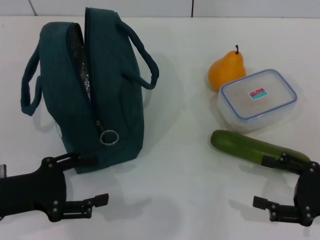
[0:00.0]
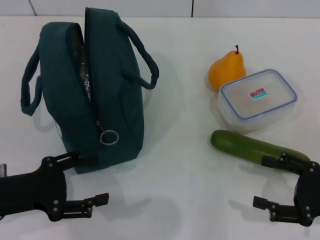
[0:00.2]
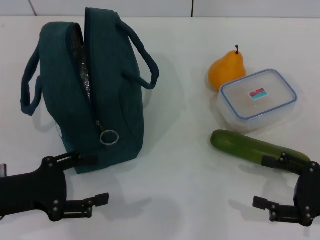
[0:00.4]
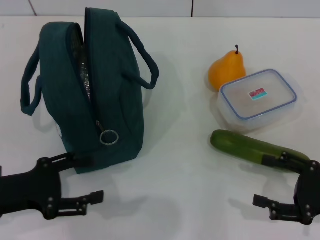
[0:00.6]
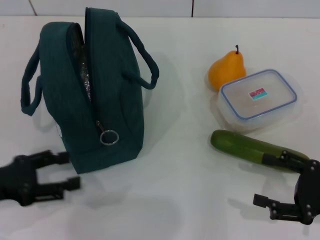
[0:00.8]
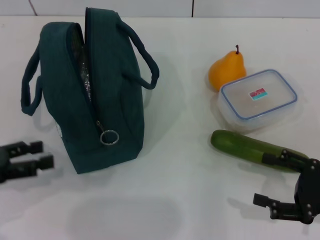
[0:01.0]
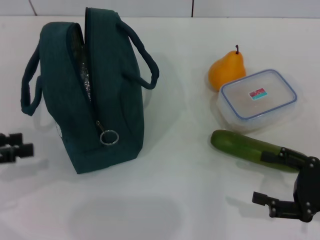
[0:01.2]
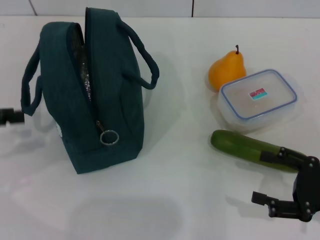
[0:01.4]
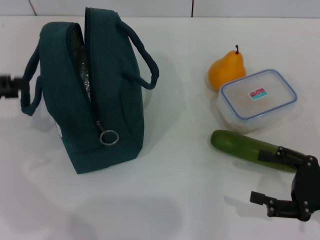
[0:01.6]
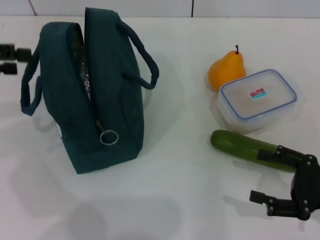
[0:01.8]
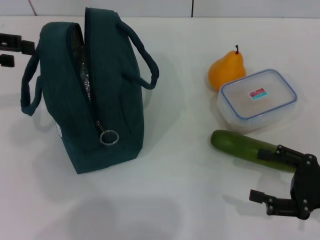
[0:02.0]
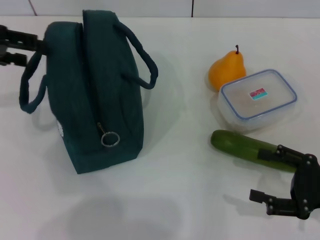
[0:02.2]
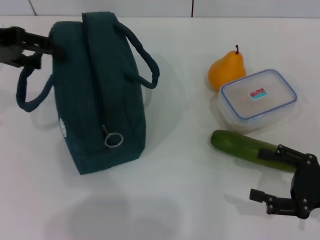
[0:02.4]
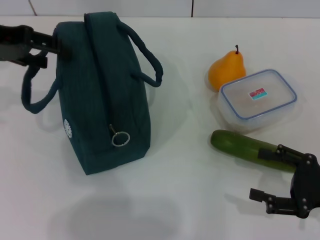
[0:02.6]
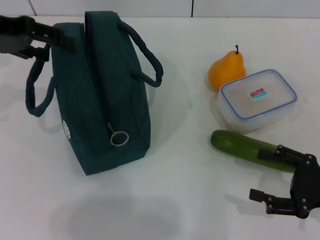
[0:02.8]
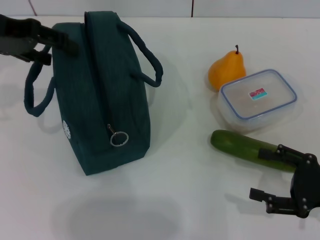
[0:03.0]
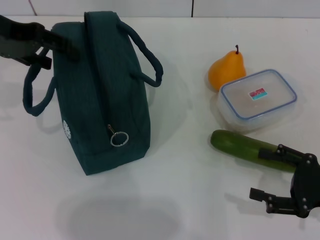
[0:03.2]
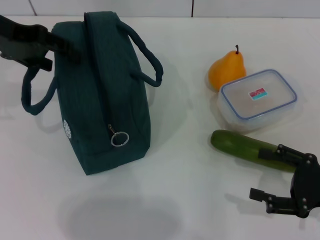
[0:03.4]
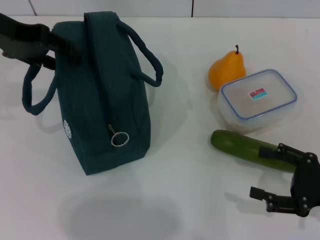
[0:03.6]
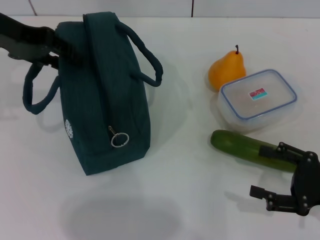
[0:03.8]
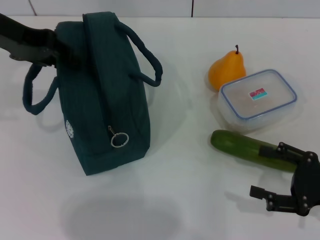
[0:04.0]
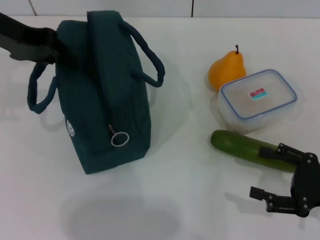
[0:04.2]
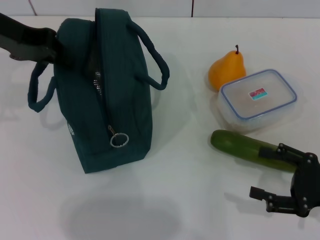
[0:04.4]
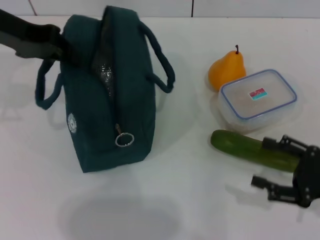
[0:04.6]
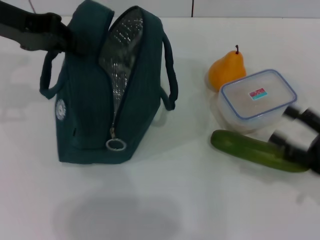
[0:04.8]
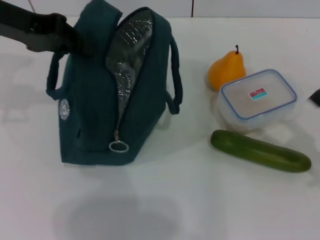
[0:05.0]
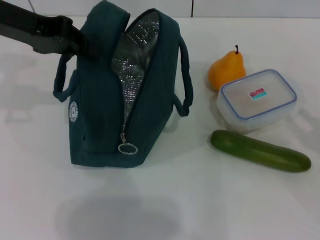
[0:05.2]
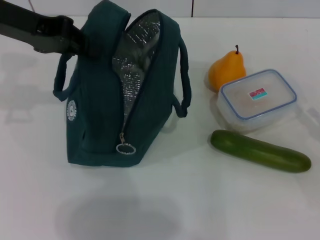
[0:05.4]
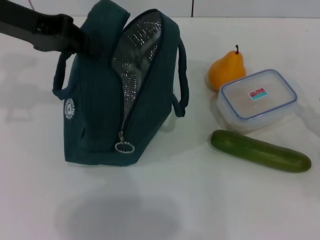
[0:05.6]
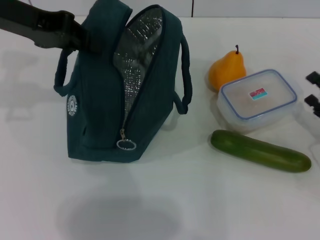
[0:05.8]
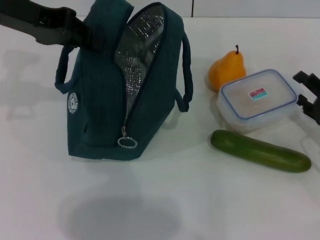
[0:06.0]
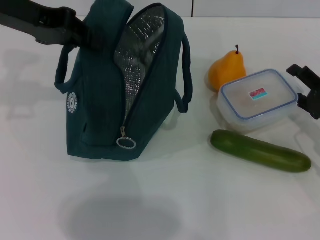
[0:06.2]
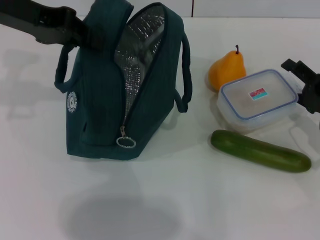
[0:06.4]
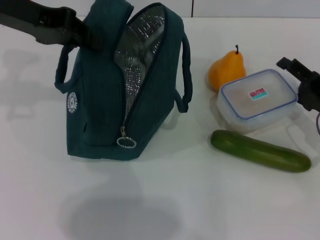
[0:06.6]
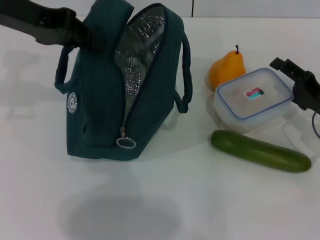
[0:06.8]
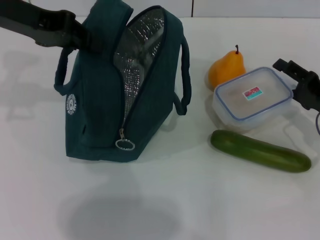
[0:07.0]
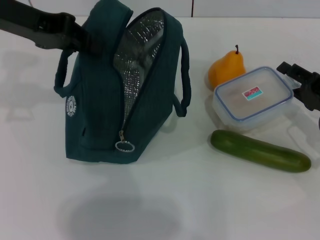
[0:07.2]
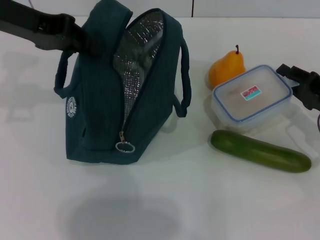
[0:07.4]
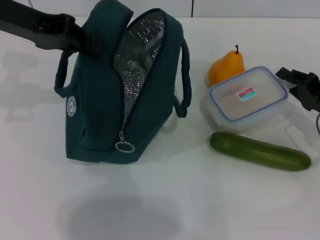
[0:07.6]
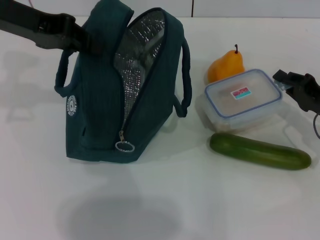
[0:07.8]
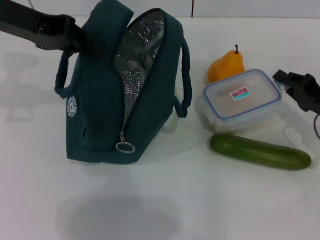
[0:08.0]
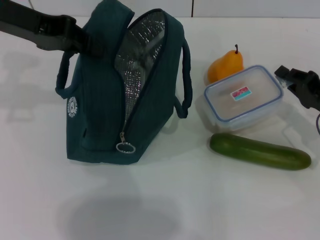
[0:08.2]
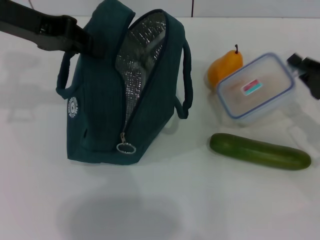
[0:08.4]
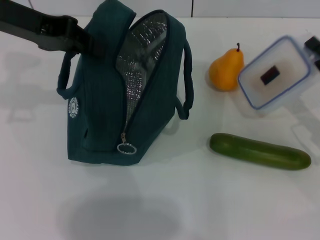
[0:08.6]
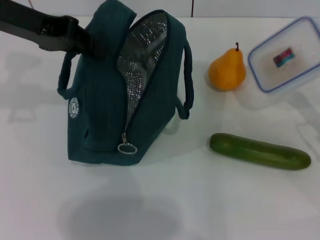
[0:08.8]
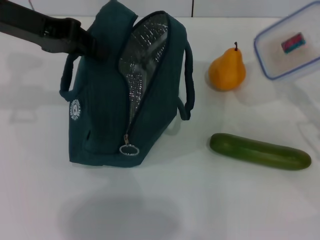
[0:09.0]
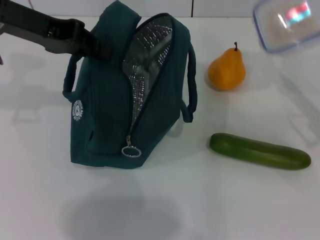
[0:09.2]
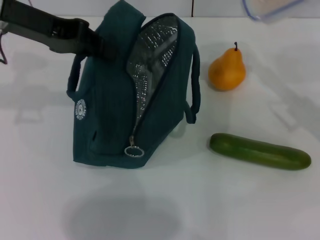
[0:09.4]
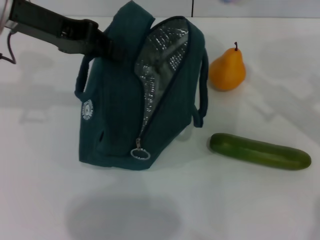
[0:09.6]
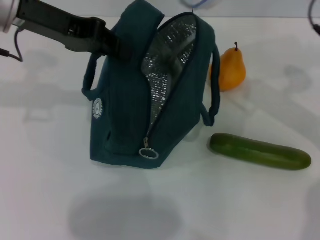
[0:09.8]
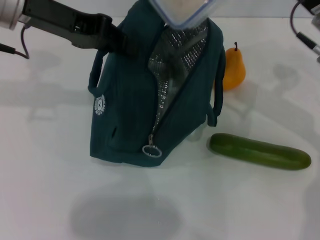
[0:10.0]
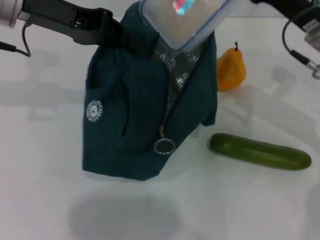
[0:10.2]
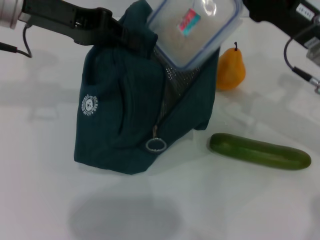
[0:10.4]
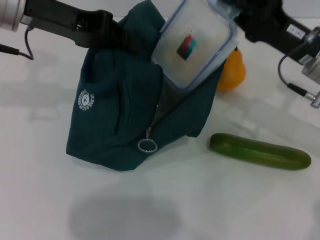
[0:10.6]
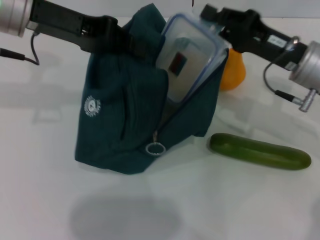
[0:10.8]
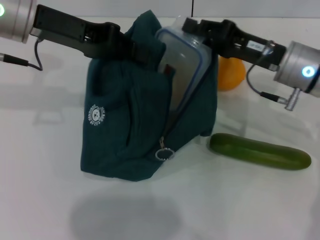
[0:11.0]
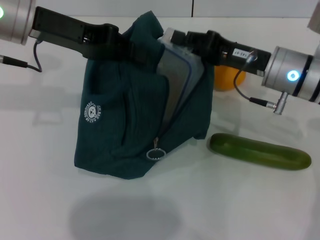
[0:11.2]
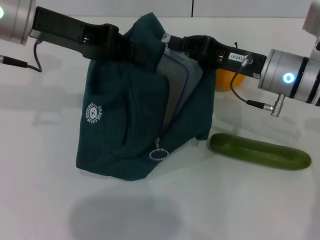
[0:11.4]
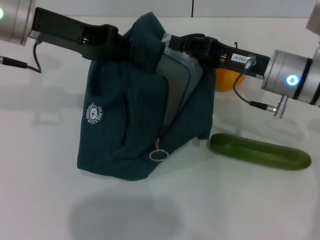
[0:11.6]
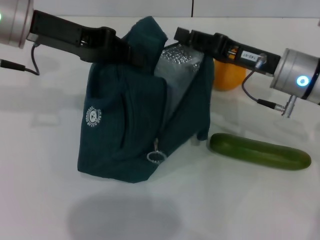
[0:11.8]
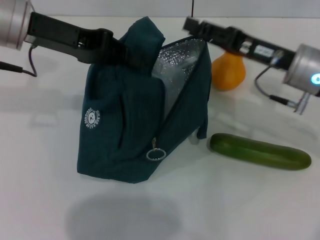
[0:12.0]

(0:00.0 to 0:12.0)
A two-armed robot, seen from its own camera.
Step, 0:00.0 - 0:04.0: Hold the lunch bag with your left hand.
Step, 0:04.4 - 0:08.0: Pick up the lunch box with your right hand.
Step, 0:08.4 - 0:12.0: Place the lunch box into the lunch bag with your right hand.
0:00.0 - 0:01.6: The left gripper travels upward, forward and to the left by approximately 15 cm.
0:01.6 - 0:03.0: The left gripper shifts roughly 15 cm to the right, forward and upward.
0:03.0 - 0:04.4: The left gripper closes up.
0:04.4 - 0:06.0: The right gripper heads forward, covering some 5 cm.
0:06.0 - 0:07.6: The right gripper closes.
0:07.6 - 0:09.0: The right gripper moves about 5 cm.
0:09.0 - 0:10.4: The right gripper is displaced to the left, forward and upward by about 15 cm.

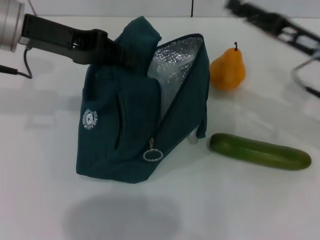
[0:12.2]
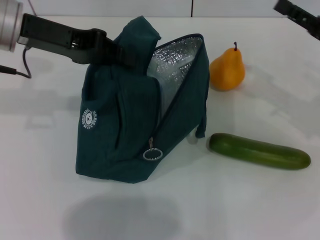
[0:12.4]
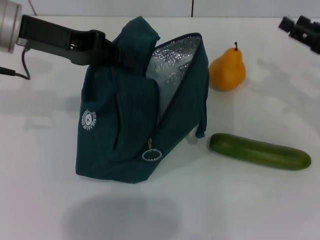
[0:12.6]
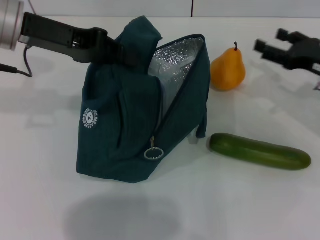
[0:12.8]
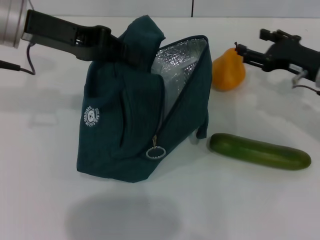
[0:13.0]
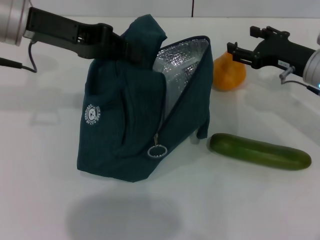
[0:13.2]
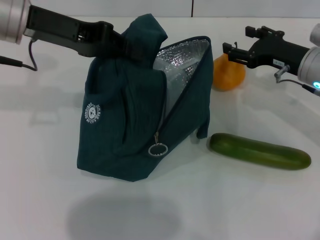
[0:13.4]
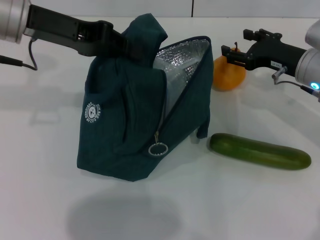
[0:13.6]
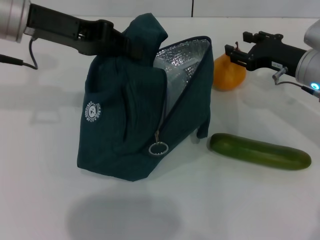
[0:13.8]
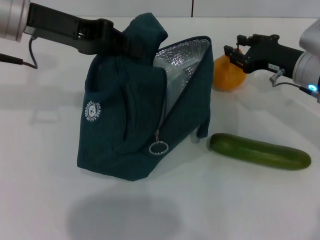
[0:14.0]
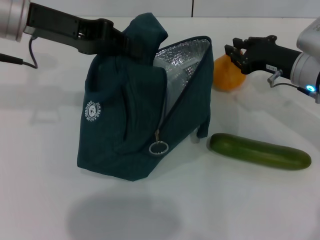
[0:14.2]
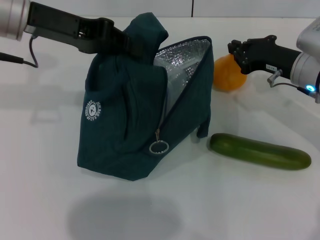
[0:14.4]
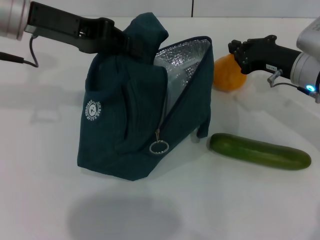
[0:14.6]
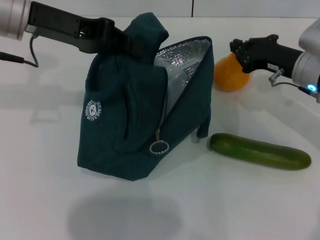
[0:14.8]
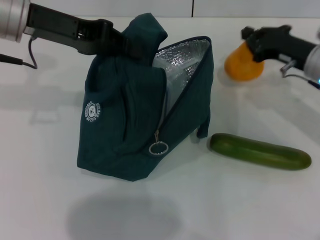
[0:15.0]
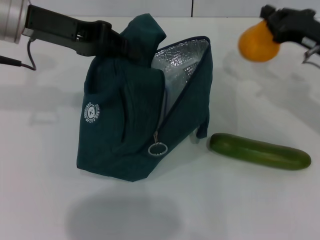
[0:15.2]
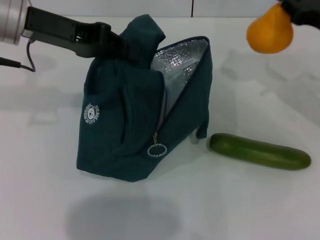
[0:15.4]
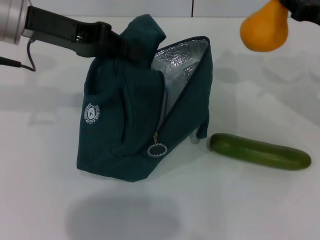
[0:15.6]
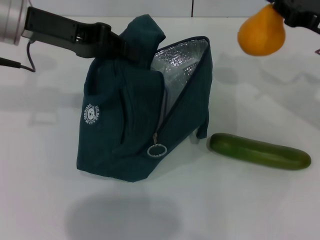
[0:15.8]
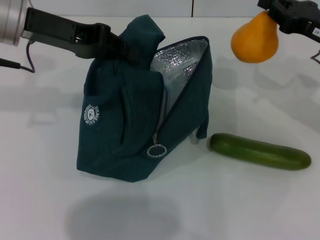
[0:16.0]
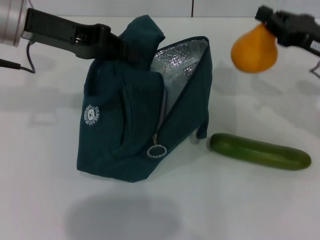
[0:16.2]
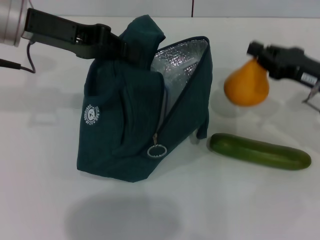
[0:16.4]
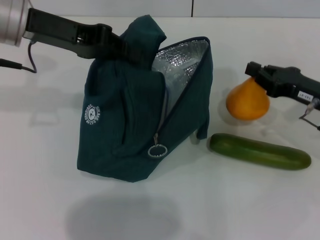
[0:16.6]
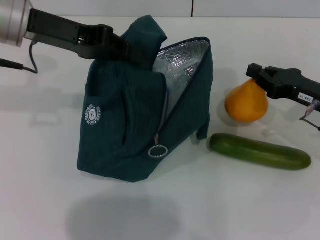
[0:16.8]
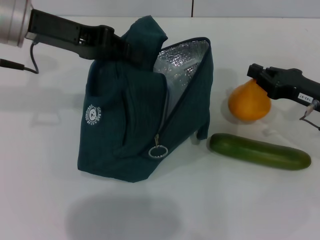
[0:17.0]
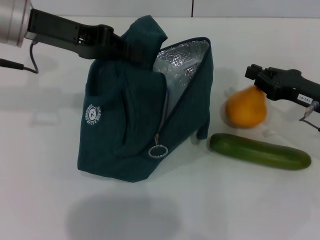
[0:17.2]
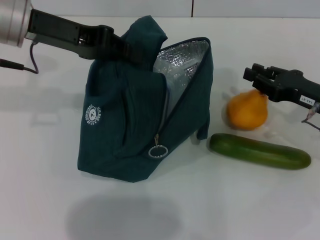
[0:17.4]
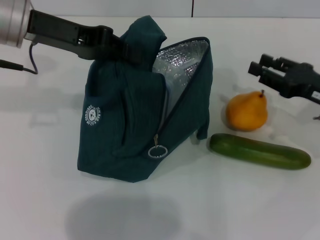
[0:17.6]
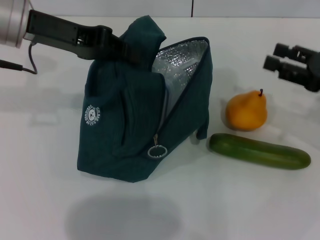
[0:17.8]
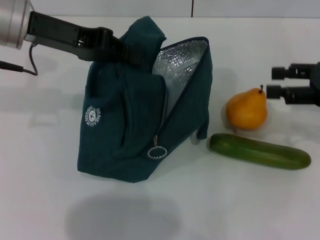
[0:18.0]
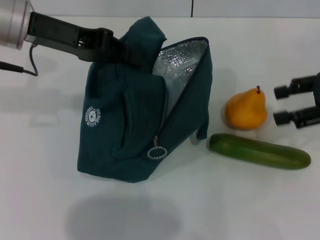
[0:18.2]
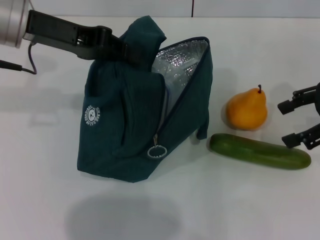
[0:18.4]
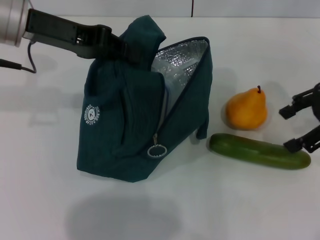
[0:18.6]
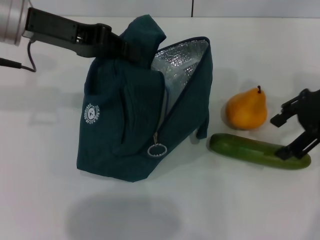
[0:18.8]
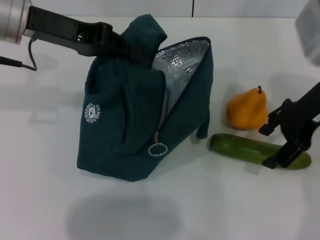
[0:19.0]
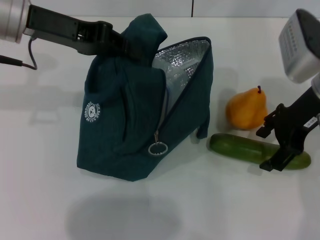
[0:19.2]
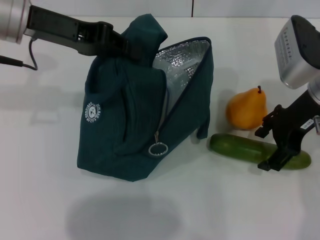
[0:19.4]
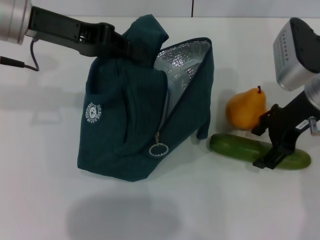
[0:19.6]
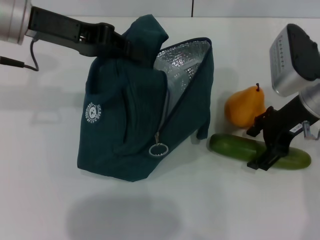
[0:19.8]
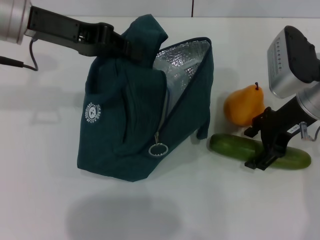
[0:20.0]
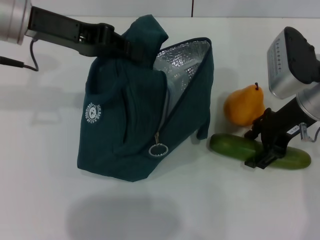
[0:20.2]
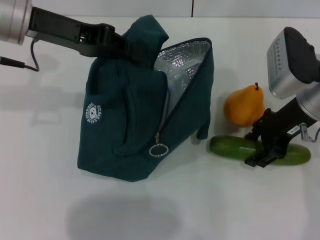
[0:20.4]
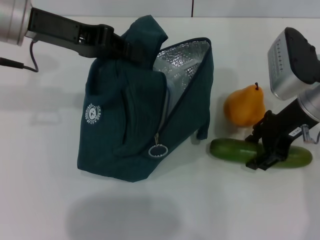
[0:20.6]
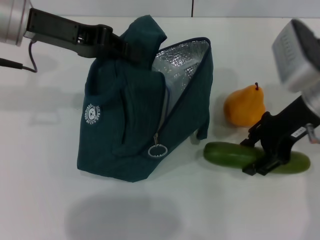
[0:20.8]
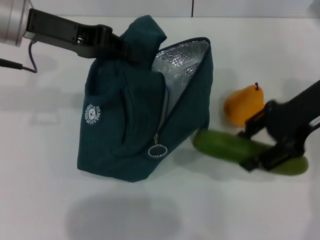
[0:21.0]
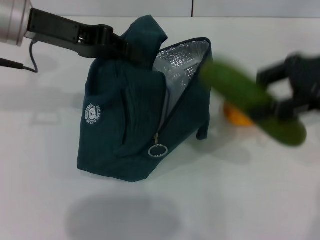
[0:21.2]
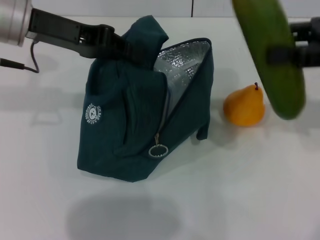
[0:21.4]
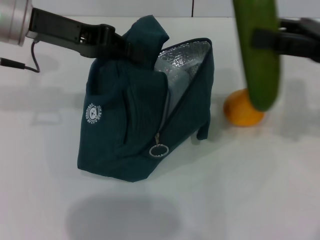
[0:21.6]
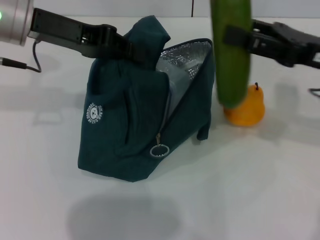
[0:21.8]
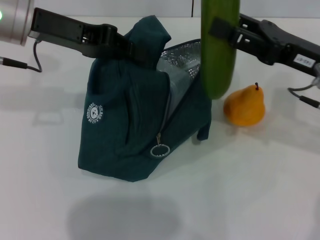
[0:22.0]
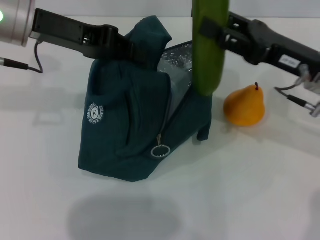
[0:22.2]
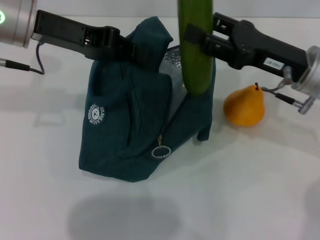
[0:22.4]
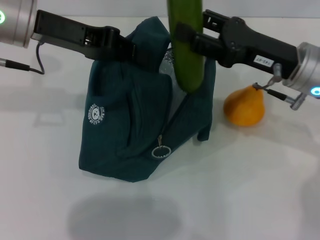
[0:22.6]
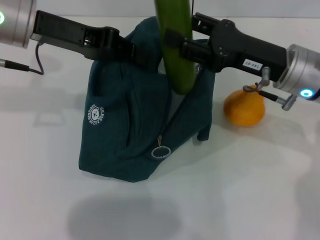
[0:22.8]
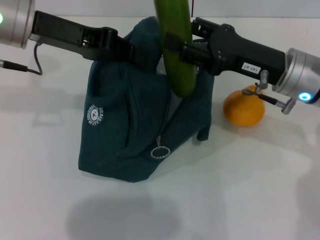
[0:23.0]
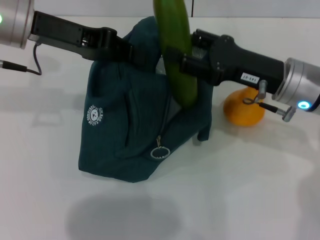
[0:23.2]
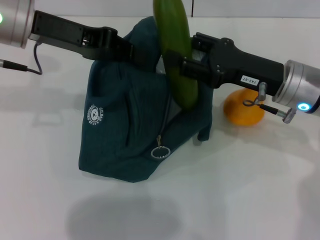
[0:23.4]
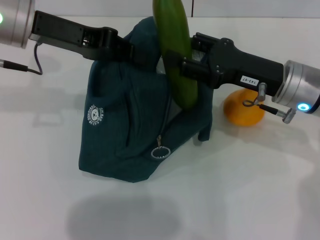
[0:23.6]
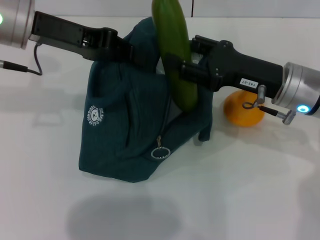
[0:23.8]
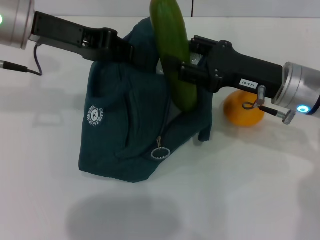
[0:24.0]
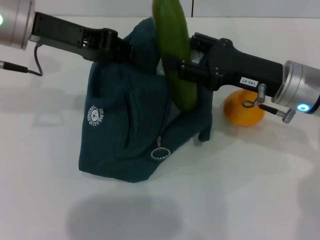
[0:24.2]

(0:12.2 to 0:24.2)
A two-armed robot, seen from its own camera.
Step, 0:12.2 - 0:20.4: Pick up the cucumber with your right hand.
0:12.2 - 0:13.8: The right gripper goes to the right and returns, approximately 5 cm each way.
0:13.8 - 0:15.2: The right gripper closes its fingers.
0:15.2 - 0:16.6: The right gripper heads backward, covering about 5 cm.
0:16.6 - 0:18.2: The right gripper goes about 10 cm upward, and opens its fingers.
0:18.2 - 0:19.8: The right gripper is displaced to the left by about 10 cm.
0:19.8 - 0:21.2: The right gripper heads upward and to the right, covering approximately 10 cm.
0:21.2 - 0:22.6: The right gripper is displaced downward and to the left by about 10 cm.
0:22.6 - 0:24.2: The grippers stay close to where they were, moving slightly.
